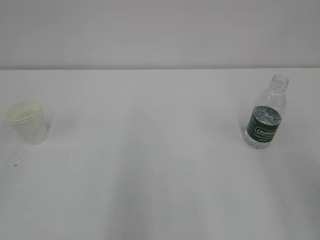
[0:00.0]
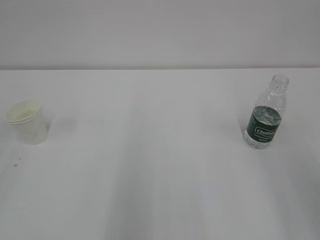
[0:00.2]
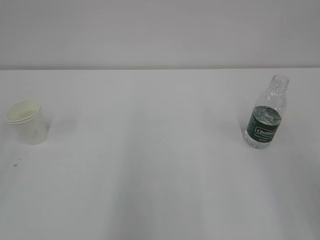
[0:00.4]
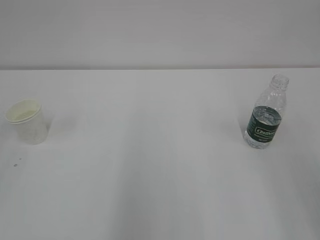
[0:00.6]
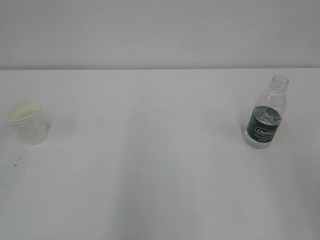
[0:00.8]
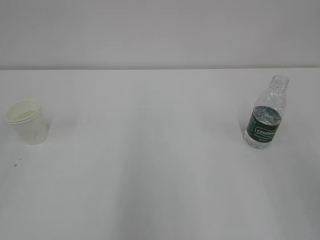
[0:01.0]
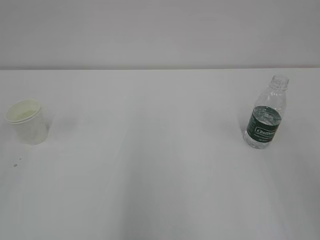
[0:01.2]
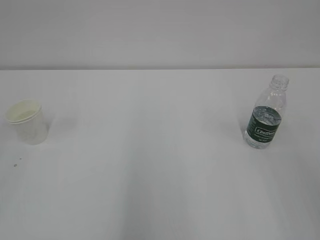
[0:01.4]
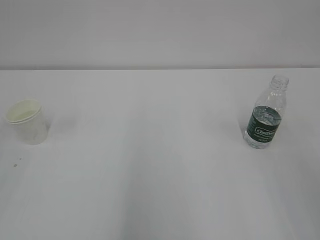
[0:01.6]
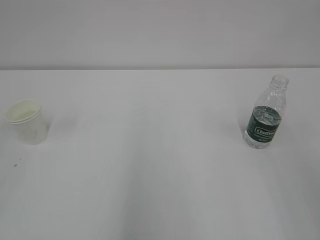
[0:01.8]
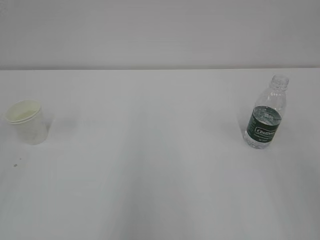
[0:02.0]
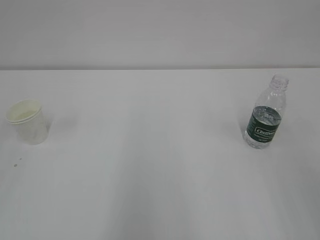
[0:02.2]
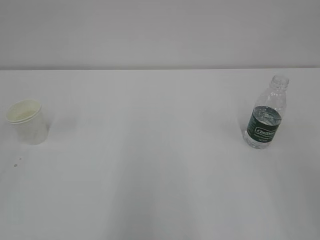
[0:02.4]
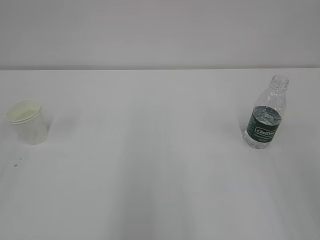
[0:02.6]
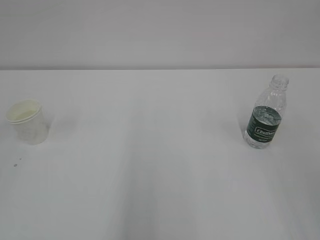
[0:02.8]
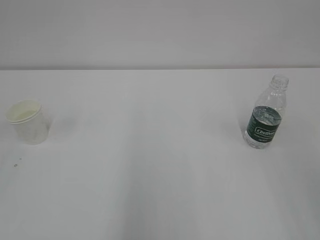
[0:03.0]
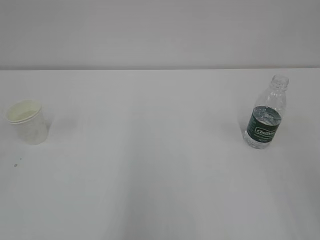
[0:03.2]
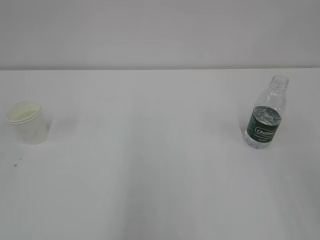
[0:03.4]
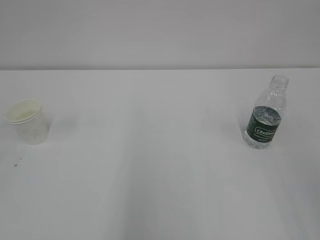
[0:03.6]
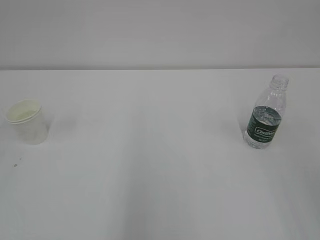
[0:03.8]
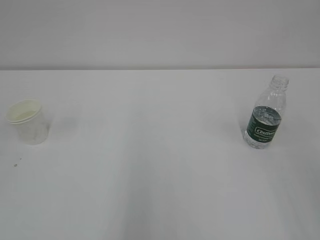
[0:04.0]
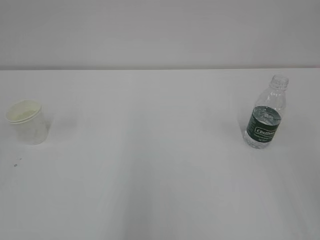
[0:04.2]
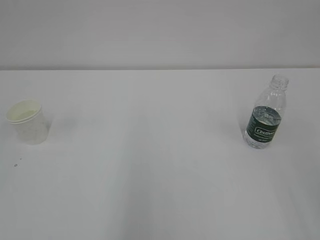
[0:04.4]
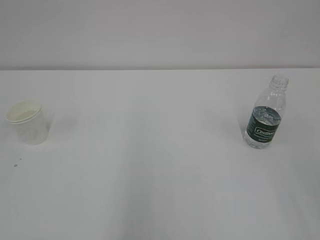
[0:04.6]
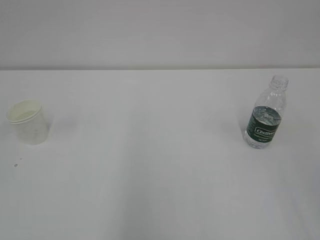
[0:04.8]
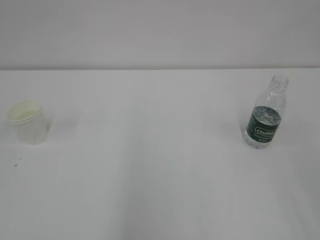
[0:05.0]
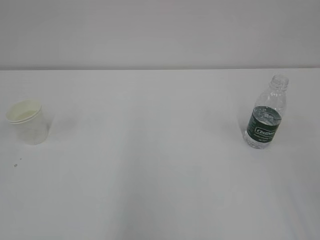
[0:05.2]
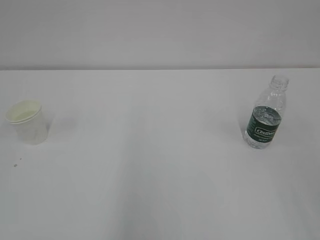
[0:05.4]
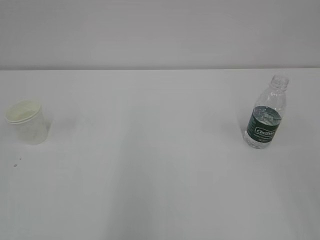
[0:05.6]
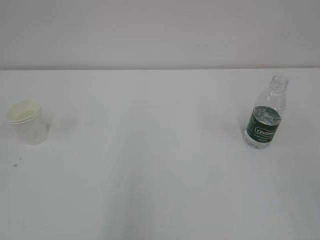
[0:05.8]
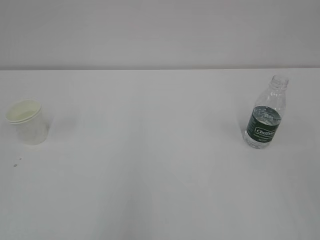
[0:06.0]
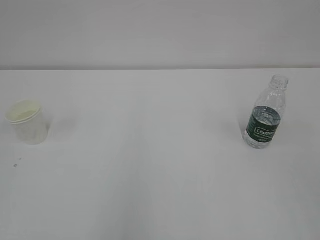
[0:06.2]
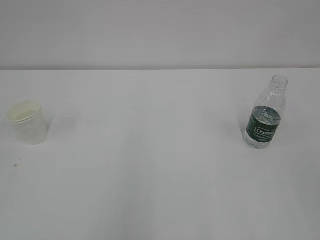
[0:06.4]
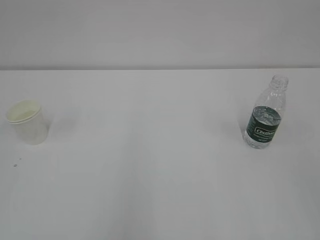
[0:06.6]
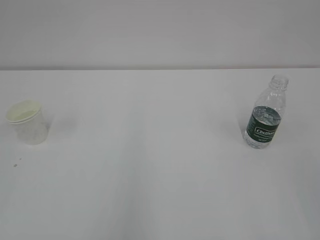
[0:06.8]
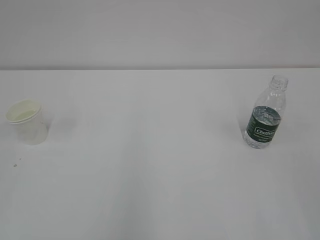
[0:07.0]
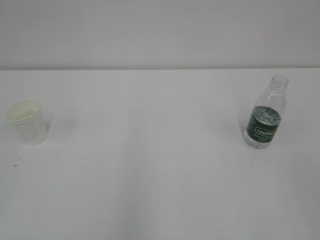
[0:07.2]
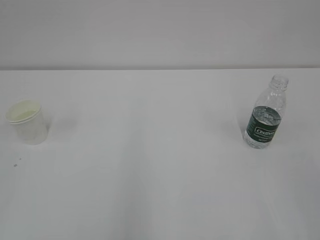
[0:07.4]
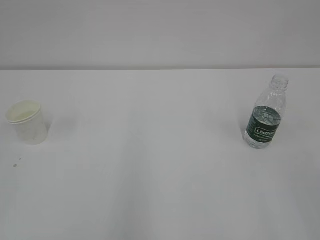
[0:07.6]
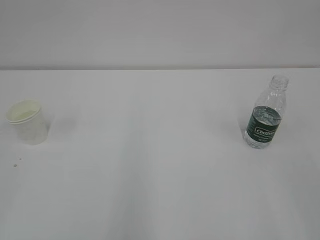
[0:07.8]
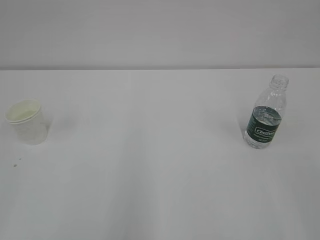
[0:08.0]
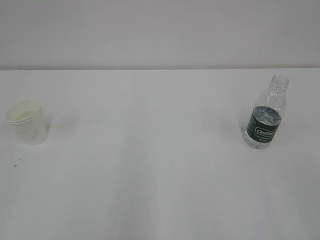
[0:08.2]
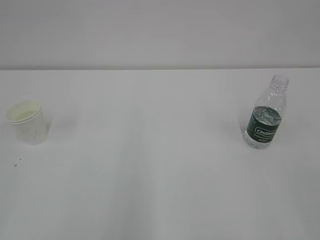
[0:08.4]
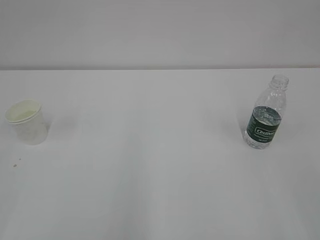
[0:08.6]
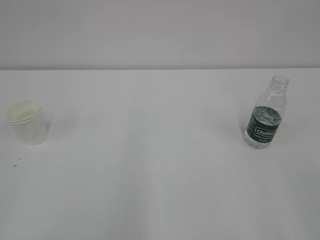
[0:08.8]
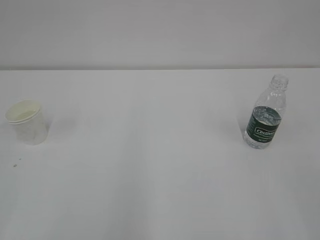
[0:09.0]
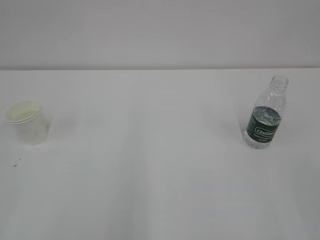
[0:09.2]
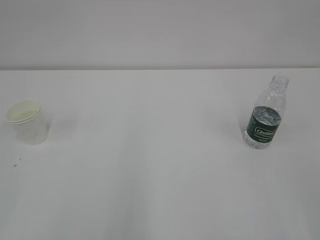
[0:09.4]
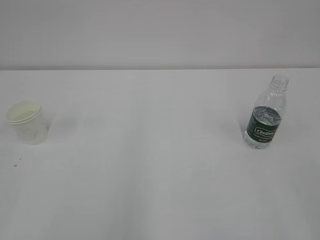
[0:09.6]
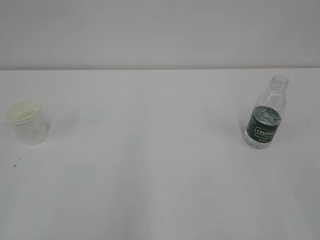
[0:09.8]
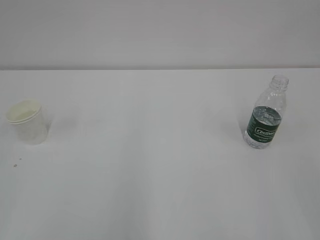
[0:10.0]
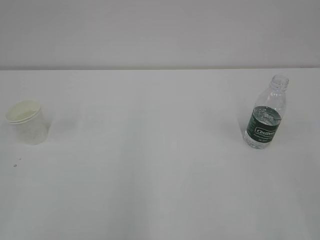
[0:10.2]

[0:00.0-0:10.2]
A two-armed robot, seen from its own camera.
0:08.8 to 0:10.2: The two grippers keep their place.

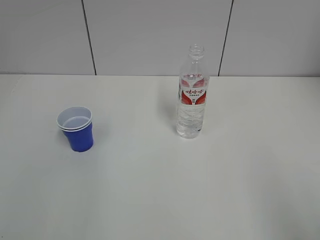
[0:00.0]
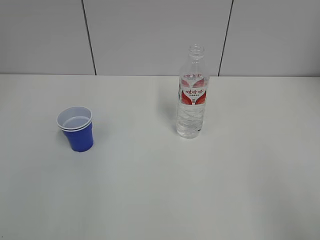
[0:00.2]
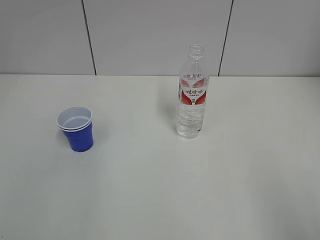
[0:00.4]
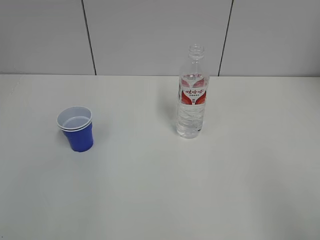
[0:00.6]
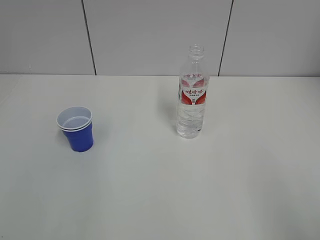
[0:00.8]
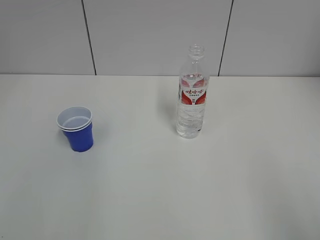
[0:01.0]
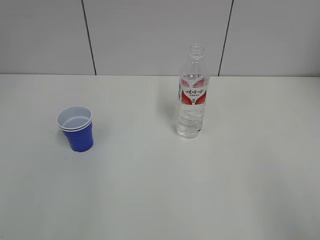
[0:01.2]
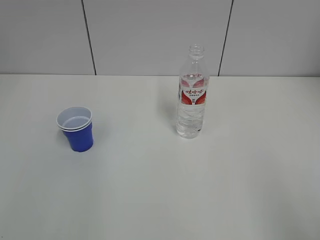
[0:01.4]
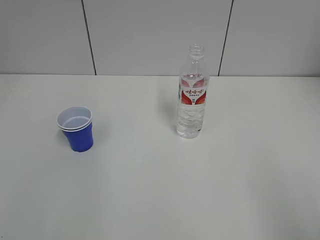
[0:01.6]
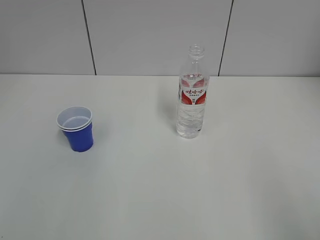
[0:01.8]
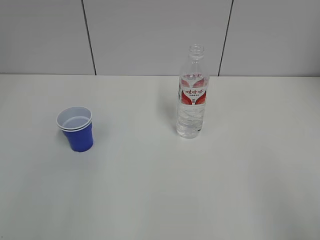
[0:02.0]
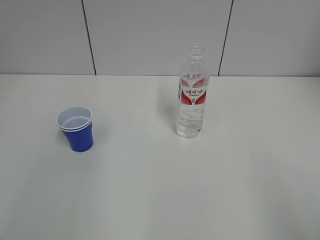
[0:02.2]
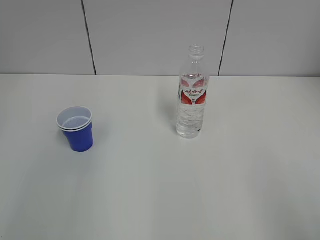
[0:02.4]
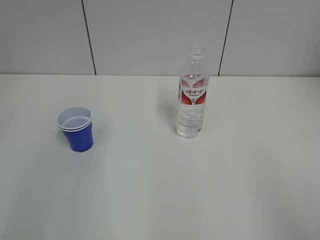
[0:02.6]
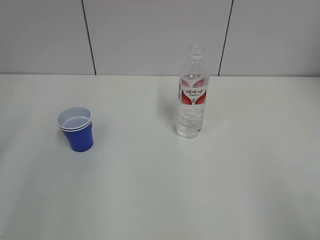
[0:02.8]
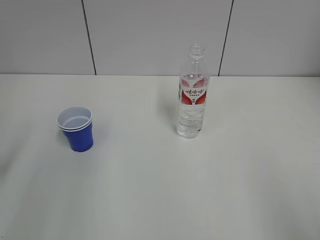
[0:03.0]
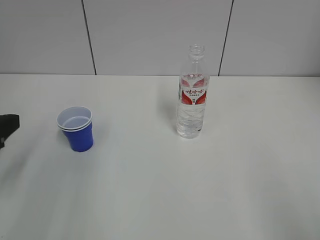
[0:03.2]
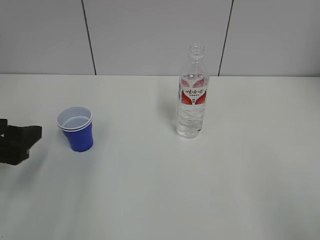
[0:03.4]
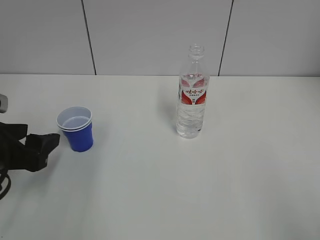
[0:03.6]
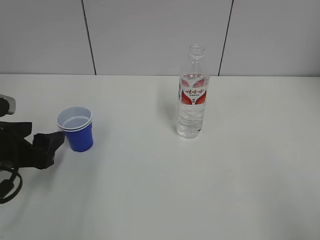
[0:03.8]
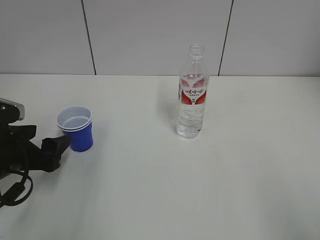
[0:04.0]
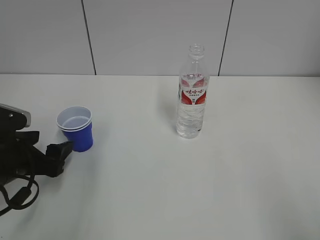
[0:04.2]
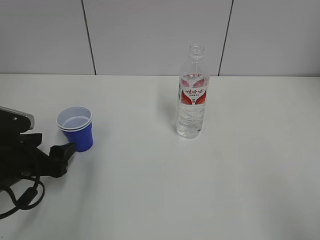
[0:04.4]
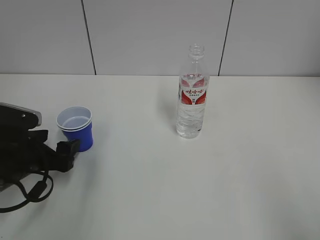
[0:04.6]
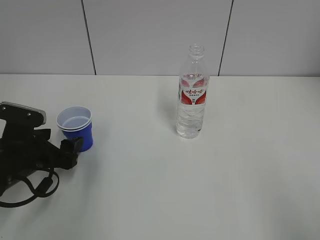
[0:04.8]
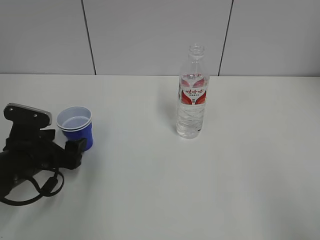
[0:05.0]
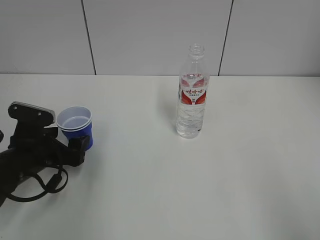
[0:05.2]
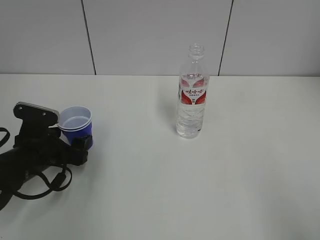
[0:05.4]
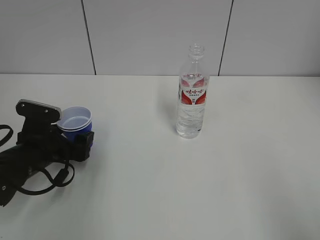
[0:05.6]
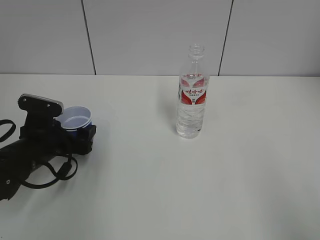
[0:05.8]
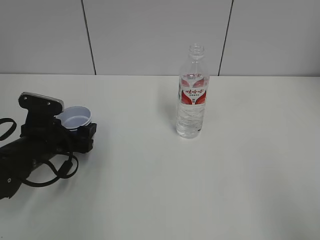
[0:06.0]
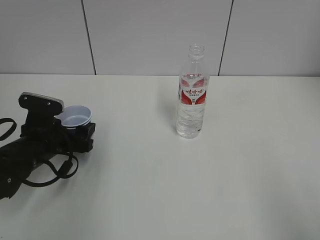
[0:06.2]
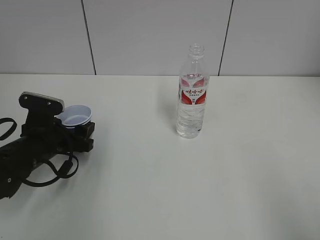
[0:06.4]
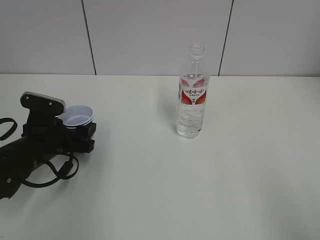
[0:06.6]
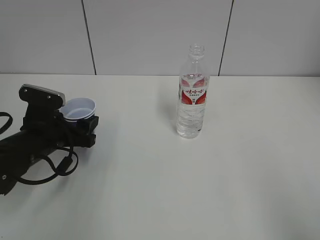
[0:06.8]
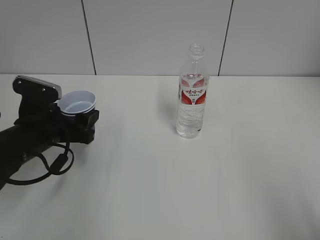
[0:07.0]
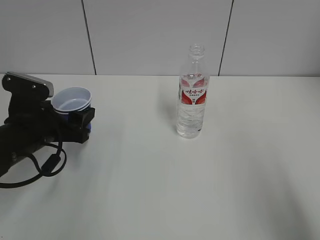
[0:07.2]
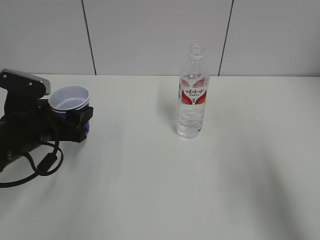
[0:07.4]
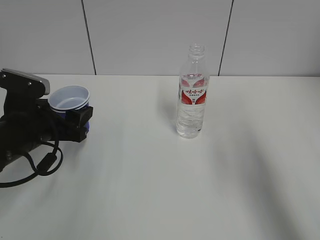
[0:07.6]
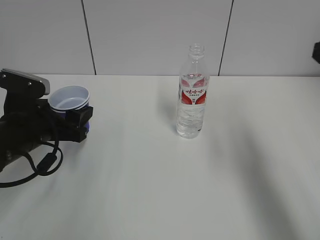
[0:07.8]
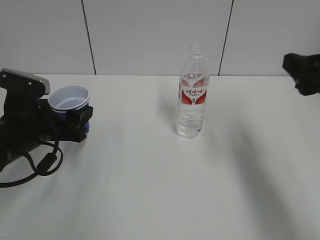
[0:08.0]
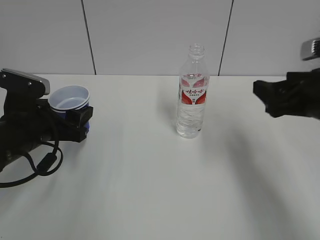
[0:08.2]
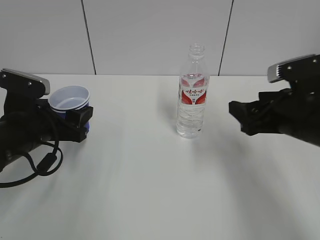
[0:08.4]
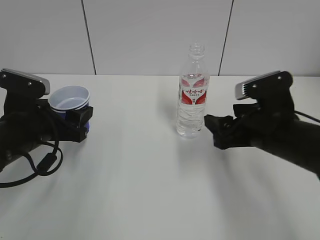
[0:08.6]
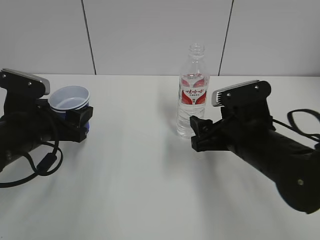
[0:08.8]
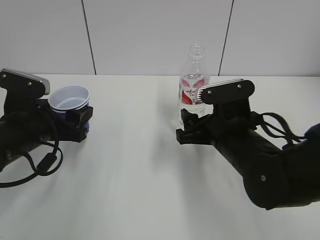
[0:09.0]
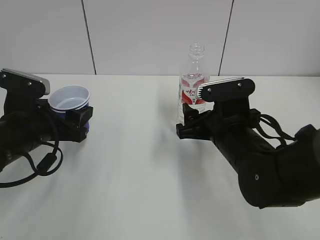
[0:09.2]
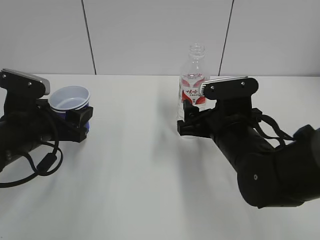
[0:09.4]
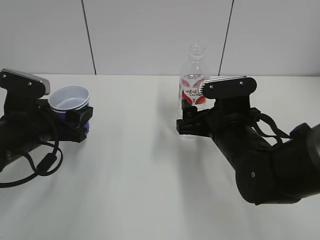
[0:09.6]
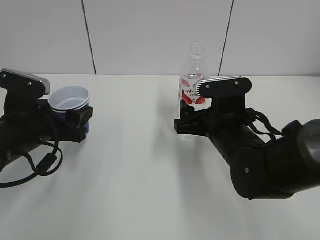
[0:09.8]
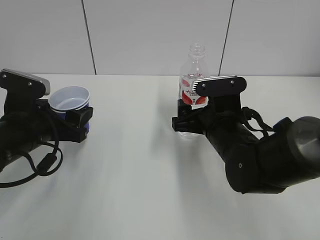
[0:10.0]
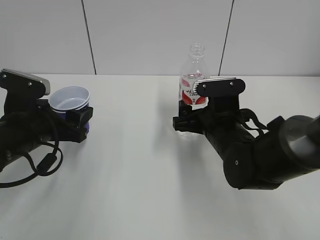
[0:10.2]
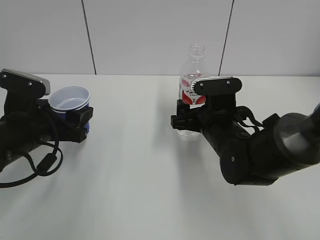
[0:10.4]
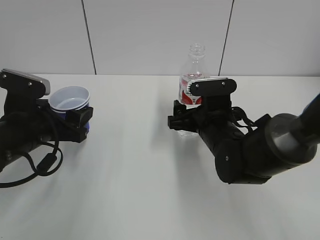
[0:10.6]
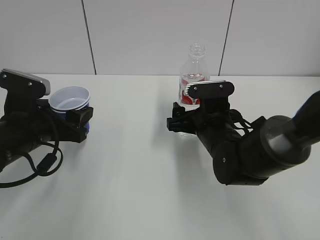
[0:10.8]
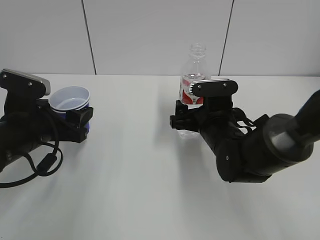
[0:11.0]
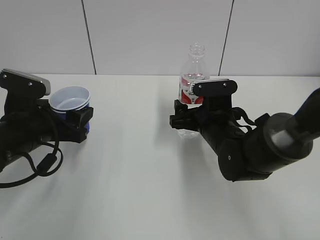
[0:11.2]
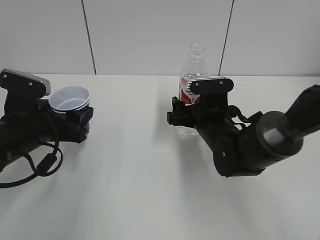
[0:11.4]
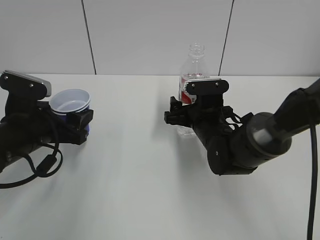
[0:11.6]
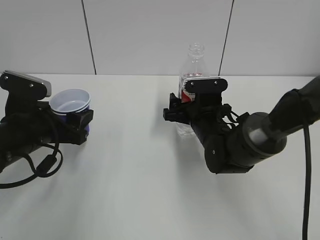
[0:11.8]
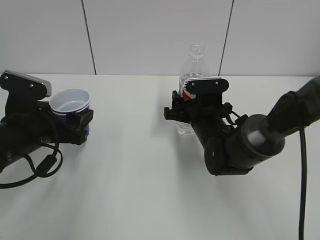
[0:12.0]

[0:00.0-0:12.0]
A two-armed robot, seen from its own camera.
Step, 0:00.0 to 0:06.6: Grab the paper cup with the left hand.
Step, 0:06.8 to 0:07.0: Lift the paper cup with the left hand.
0:03.0 to 0:04.4: The left gripper heads downward and forward, covering roughly 15 cm.
0:04.4 to 0:06.0: The left gripper heads forward, covering about 5 cm.
0:06.0 to 0:07.6: The left gripper heads upward, covering about 5 cm, and closes its fingers. Meanwhile the right gripper travels forward by about 15 cm.
0:07.6 to 0:09.0: The right gripper shifts about 25 cm downward, to the left and forward.
0:09.0 to 0:10.4: The right gripper goes roughly 5 cm forward, and opens.
0:10.4 to 0:12.0: The right gripper changes place by approximately 5 cm, and closes.
